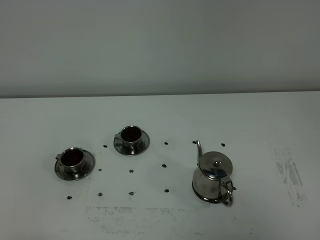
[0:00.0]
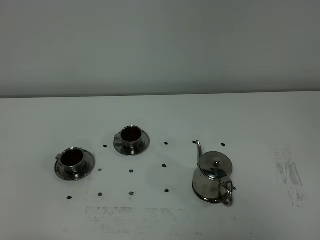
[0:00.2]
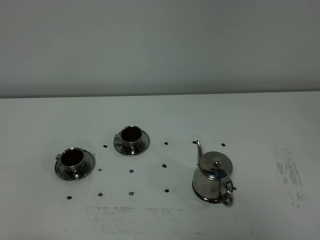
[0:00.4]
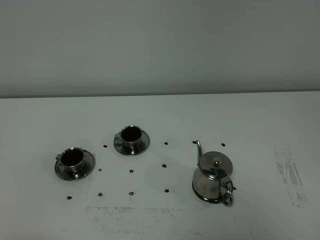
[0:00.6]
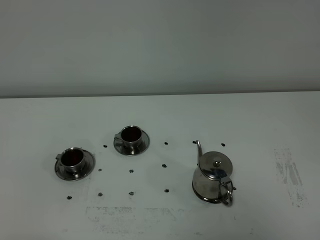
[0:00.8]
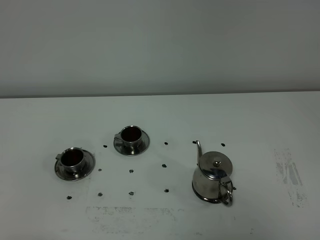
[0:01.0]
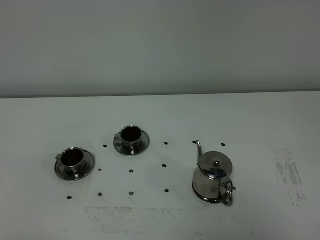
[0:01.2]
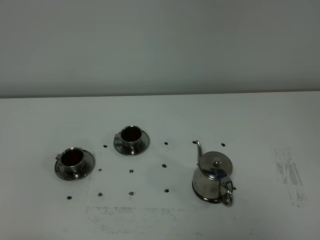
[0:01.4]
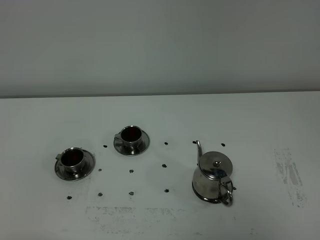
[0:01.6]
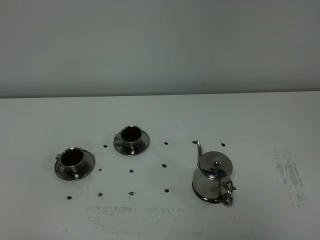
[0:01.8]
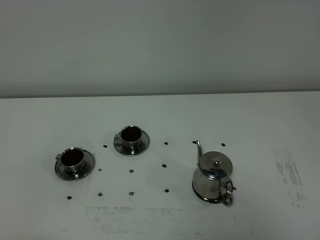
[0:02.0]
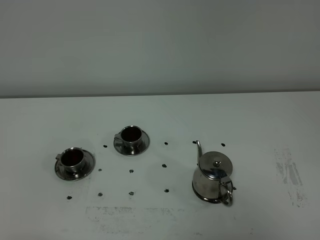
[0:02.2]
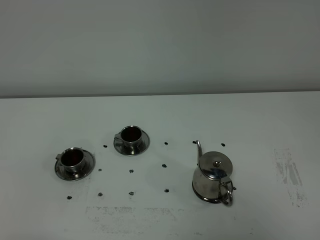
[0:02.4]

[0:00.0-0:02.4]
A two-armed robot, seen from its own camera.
Task of the whole recording: grasp the stainless steel teapot and pour the tea into the two stainless steel teacups one by one, put the stainless steel teapot back in its original place.
0:00.0 to 0:02.4: Neither gripper changes place.

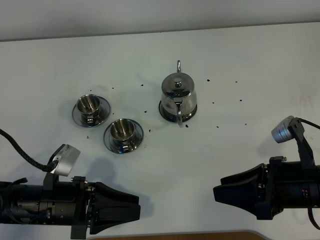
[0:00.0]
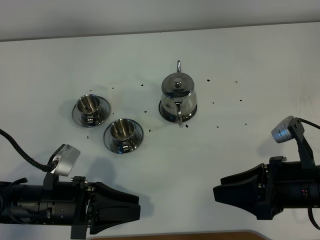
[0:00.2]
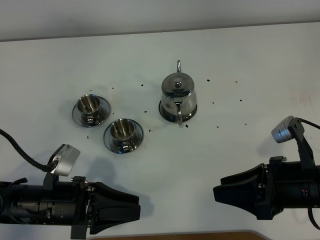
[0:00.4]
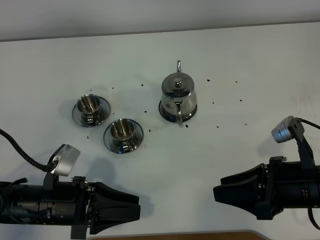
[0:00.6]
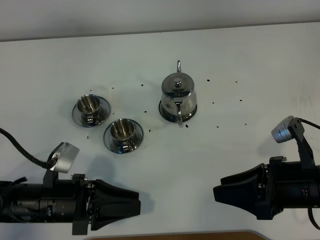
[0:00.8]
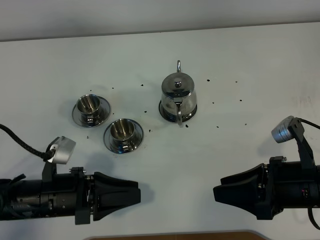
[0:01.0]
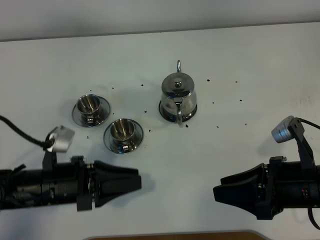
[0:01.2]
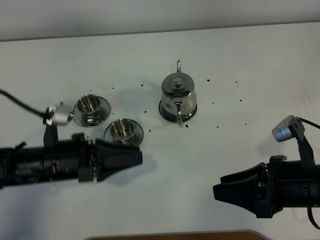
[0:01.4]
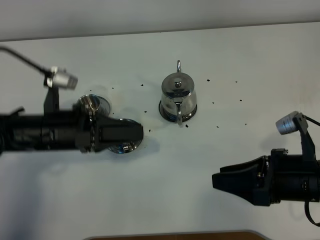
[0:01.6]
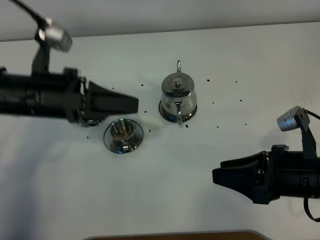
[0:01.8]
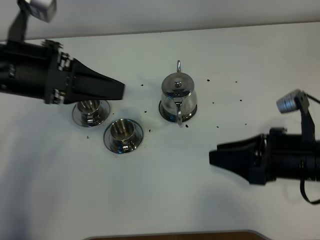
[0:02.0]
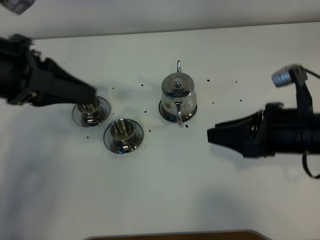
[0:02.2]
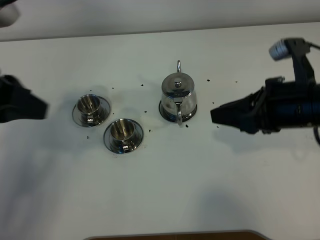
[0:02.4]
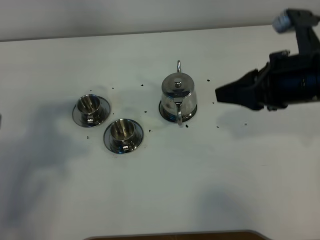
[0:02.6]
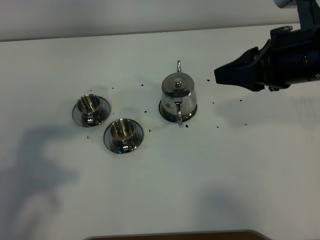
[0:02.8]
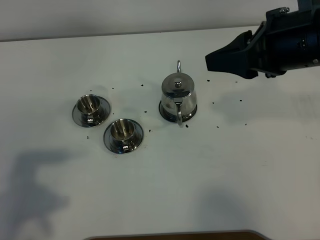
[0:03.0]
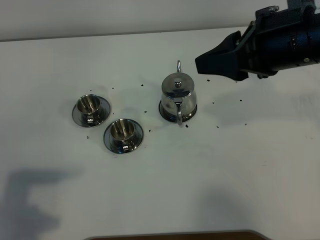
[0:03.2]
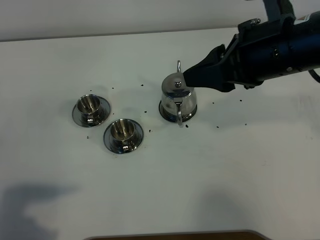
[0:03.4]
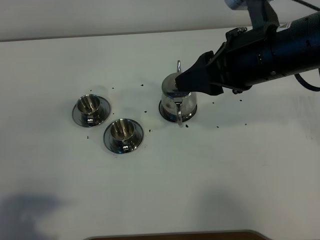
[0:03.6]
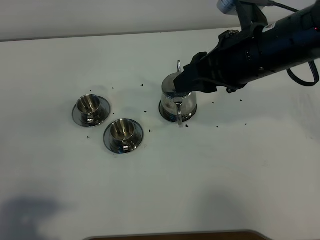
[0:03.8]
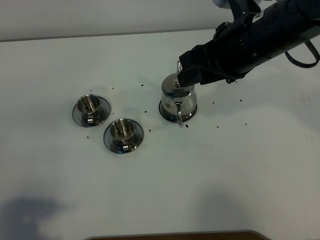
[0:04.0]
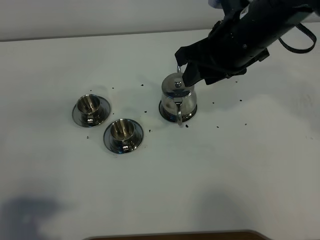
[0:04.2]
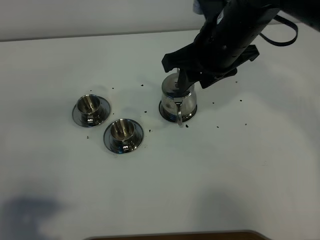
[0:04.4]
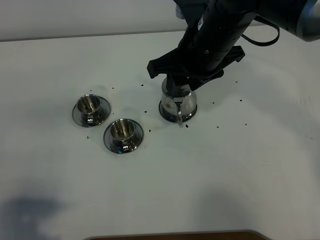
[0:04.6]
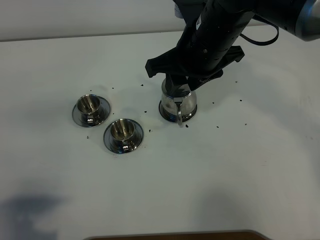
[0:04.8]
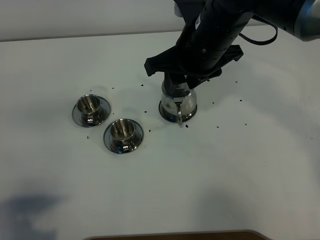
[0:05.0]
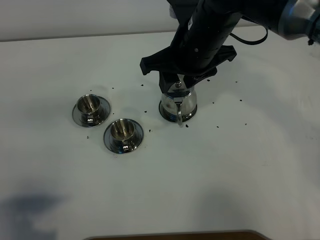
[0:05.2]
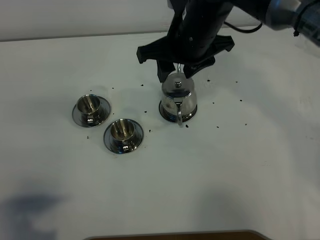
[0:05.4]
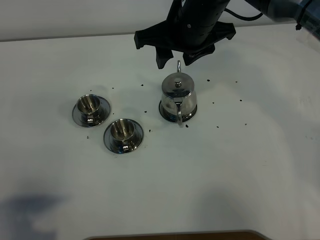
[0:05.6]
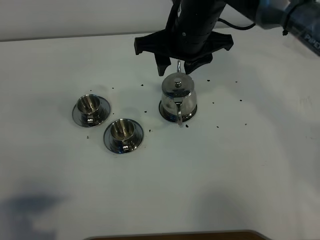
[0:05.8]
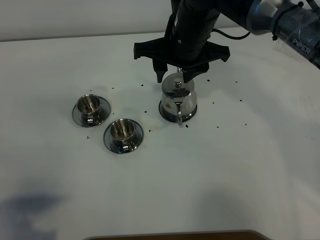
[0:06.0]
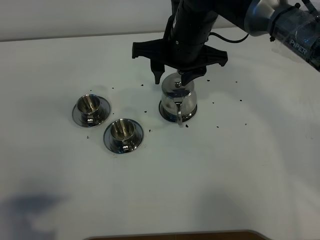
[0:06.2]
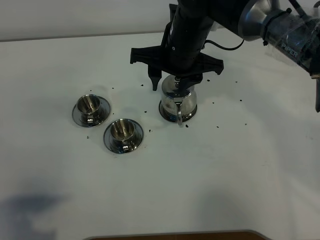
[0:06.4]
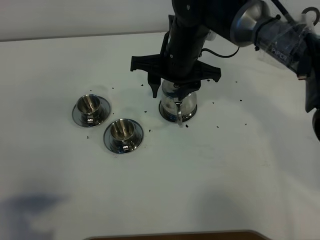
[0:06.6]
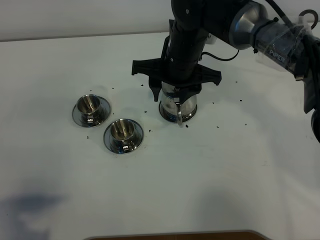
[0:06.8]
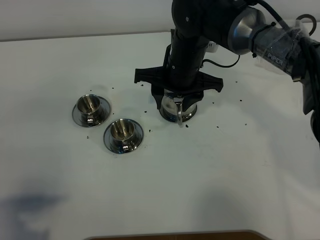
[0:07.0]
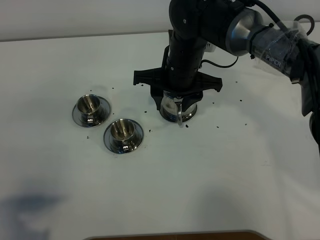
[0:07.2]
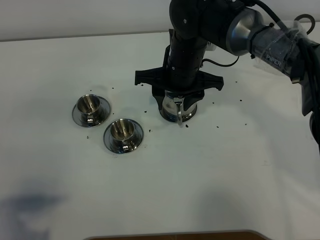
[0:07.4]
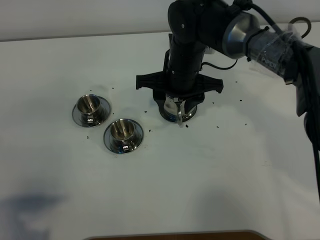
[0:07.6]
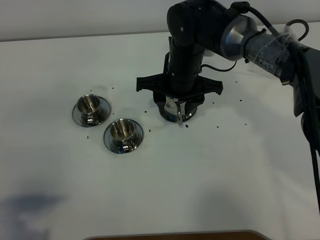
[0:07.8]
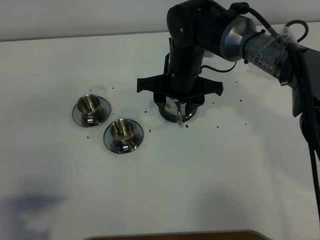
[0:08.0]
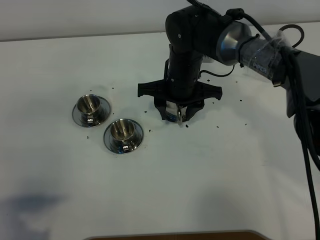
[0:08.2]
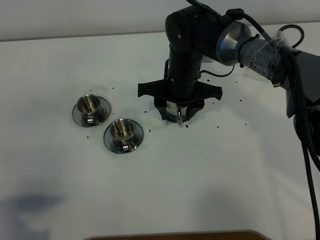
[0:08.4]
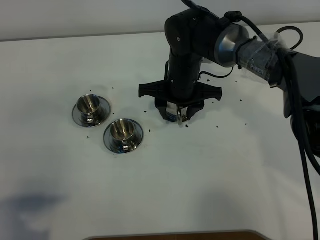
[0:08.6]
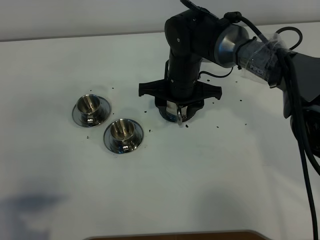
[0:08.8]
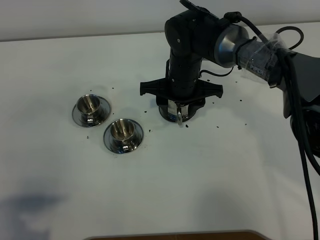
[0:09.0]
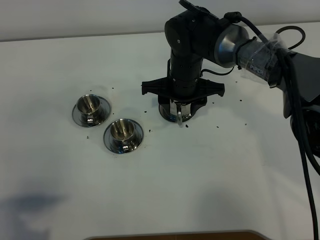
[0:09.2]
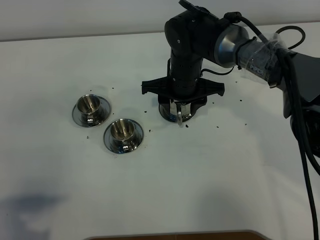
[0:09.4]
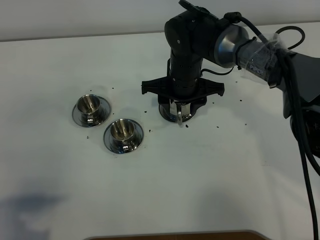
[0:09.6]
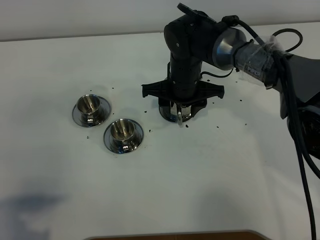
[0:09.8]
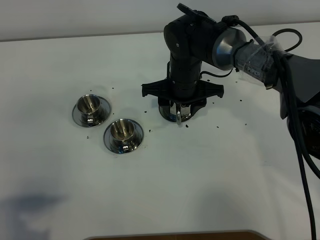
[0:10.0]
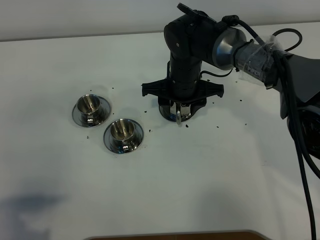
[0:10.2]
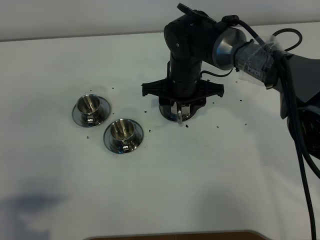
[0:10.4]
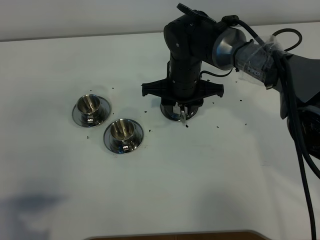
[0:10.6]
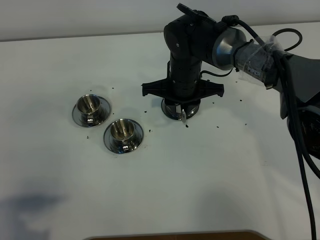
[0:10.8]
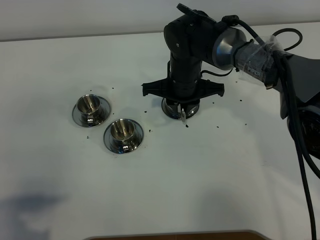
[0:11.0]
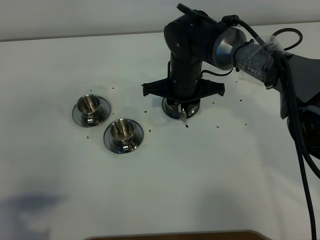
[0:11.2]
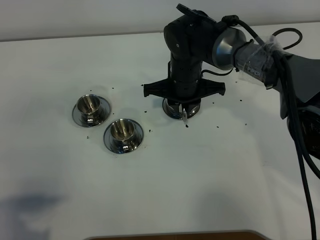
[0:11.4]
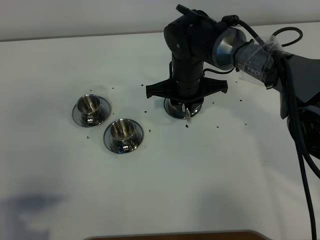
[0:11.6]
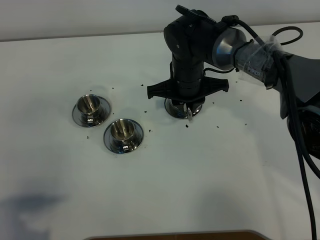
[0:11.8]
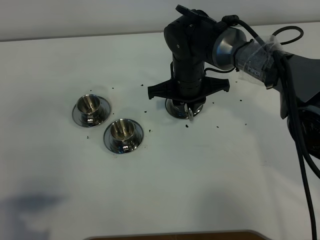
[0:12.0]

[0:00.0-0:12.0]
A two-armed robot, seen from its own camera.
Task of the whole recording: grasp the stainless steel teapot and pour the tea into the two stainless steel teacups one by one, put the stainless steel teapot back in its original place.
0:00.0 to 0:01.6: The left gripper is displaced forward and upward by about 10 cm.
0:01.6 to 0:03.0: The right gripper shifts roughly 20 cm upward and forward. The left gripper goes approximately 20 cm backward, upward and to the left, and closes its fingers.
0:03.0 to 0:04.4: The left gripper travels backward by some 5 cm. Meanwhile the right gripper shifts about 15 cm to the left, forward and downward.
0:04.4 to 0:06.0: The right gripper changes place by roughly 5 cm.
0:06.0 to 0:07.6: The right gripper shifts some 5 cm downward.
0:07.6 to 0:09.0: The grippers move only a little.
0:09.0 to 0:10.4: Neither gripper changes place.
0:10.4 to 0:12.0: The right gripper closes up.

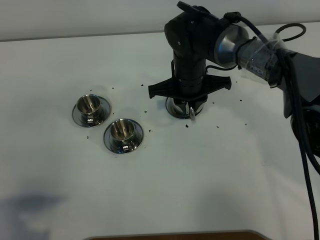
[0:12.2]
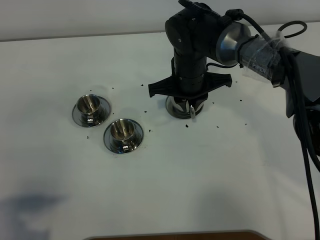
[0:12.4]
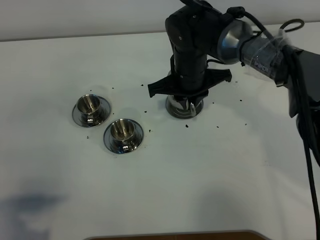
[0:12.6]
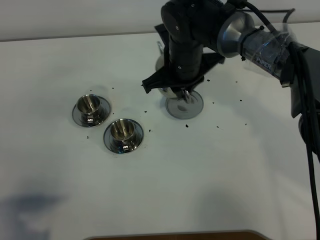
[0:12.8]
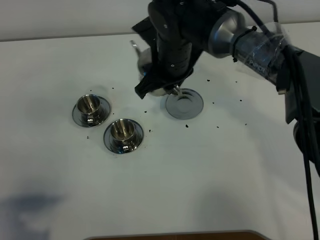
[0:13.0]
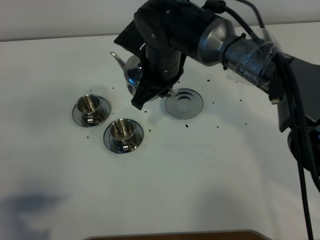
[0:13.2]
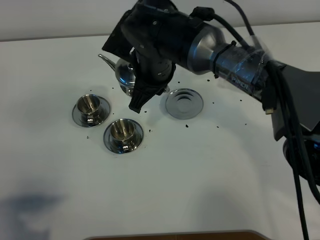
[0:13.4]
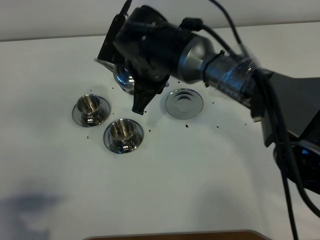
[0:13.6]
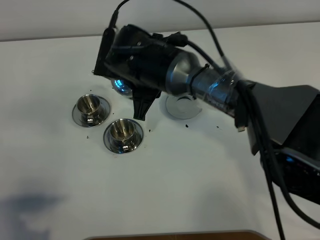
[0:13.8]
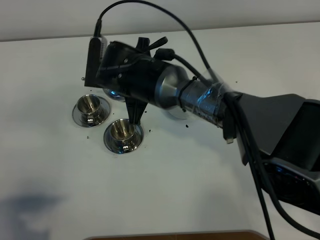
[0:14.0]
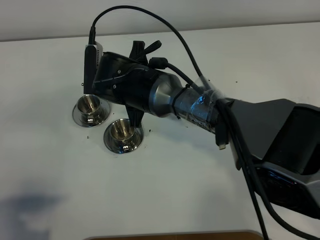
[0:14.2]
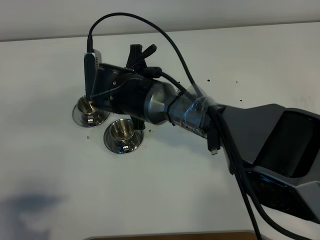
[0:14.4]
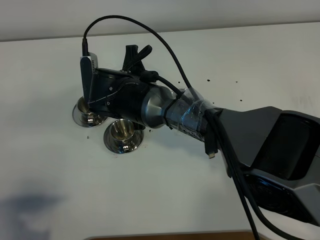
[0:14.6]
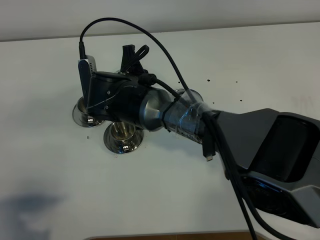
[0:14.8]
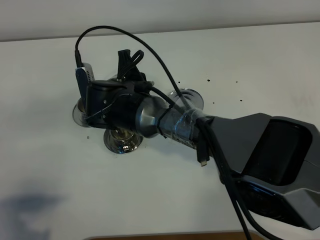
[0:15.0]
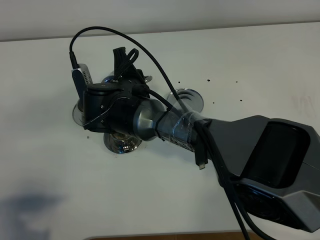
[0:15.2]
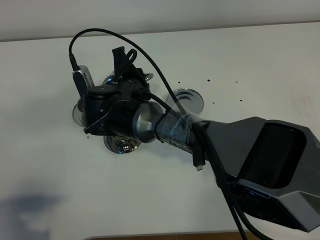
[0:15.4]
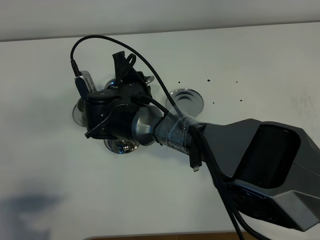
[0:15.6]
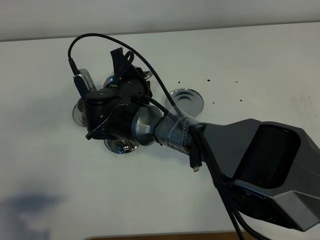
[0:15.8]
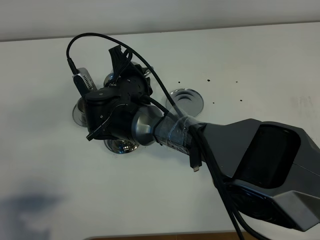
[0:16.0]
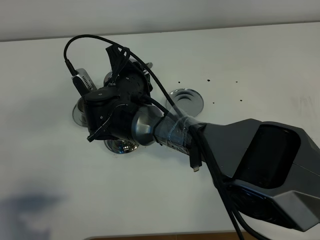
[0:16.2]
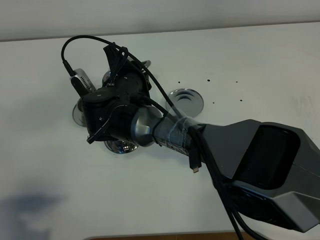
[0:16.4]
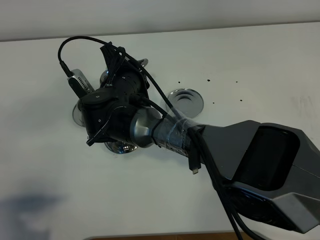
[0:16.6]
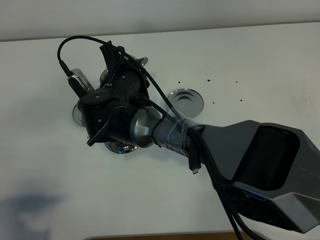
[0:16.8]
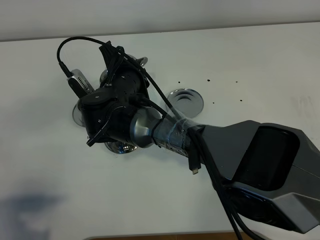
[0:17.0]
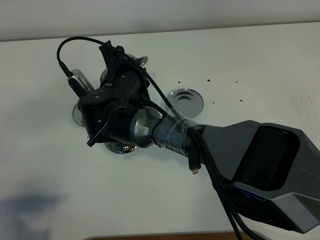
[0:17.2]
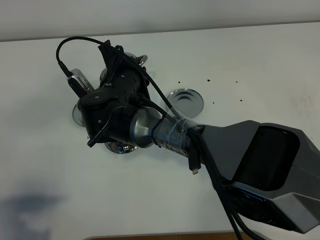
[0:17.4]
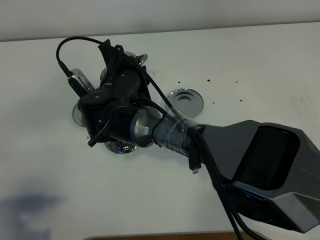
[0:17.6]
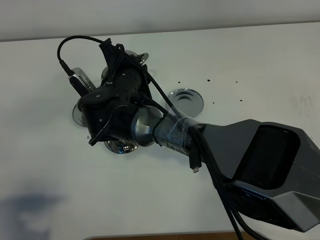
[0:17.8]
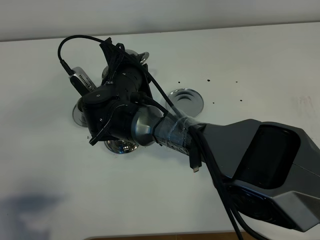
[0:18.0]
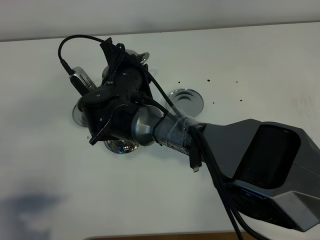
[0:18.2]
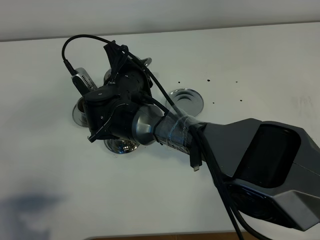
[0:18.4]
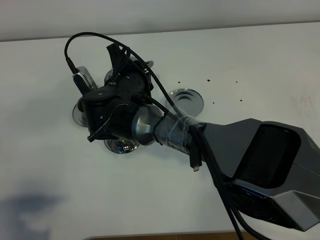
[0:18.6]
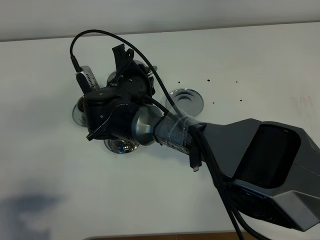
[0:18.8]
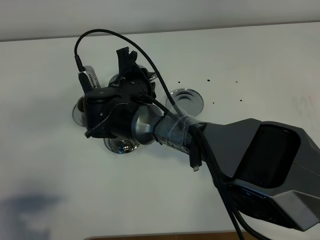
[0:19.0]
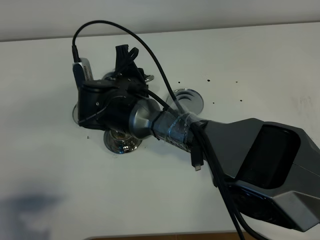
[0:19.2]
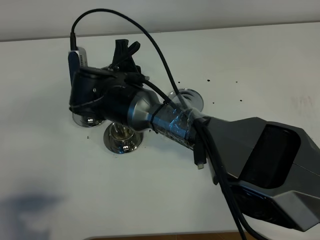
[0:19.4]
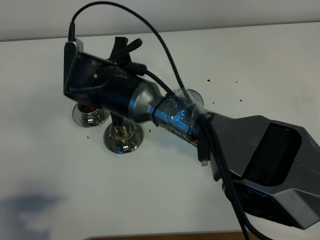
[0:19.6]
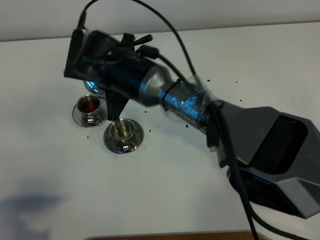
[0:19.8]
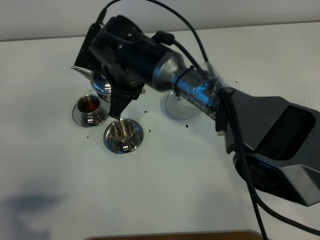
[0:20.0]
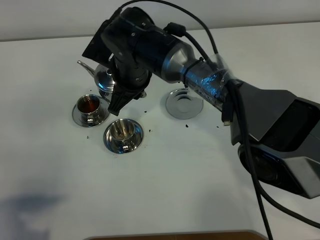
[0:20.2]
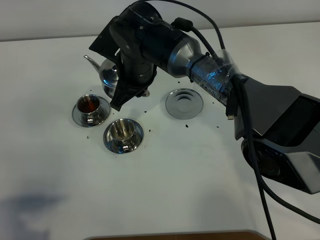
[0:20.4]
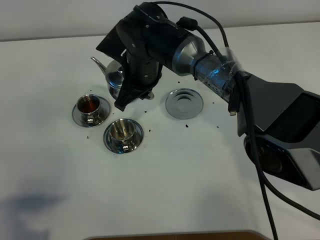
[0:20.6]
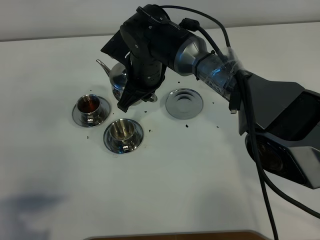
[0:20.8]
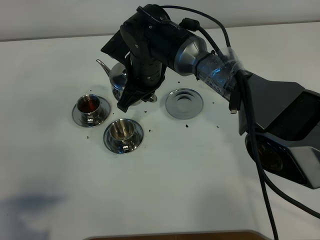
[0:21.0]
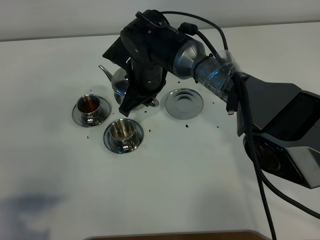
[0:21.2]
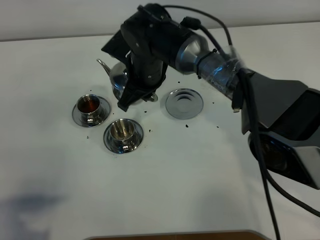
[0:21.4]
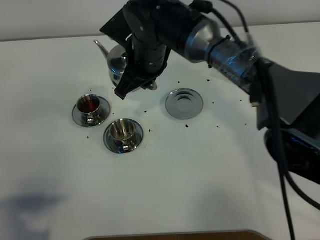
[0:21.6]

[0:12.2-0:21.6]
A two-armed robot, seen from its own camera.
Task of the whole recording: grasp the stainless steel teapot and pour the tea into the two stainless steel teacups one by one, put the stainless steel teapot back in its original place.
0:12.2 to 0:13.8: The right gripper heads to the left, covering about 10 cm.
0:13.8 to 0:15.4: The right gripper moves some 5 cm.
0:15.4 to 0:17.0: The grippers move only a little.
0:17.0 to 0:18.4: Both grippers stay put.
0:18.4 to 0:20.0: The right gripper changes place by about 5 cm.
0:20.0 to 0:21.6: The right gripper shifts by about 5 cm.
